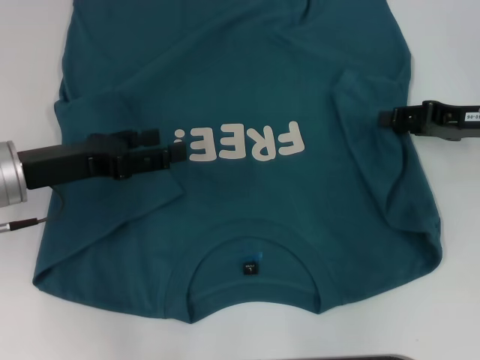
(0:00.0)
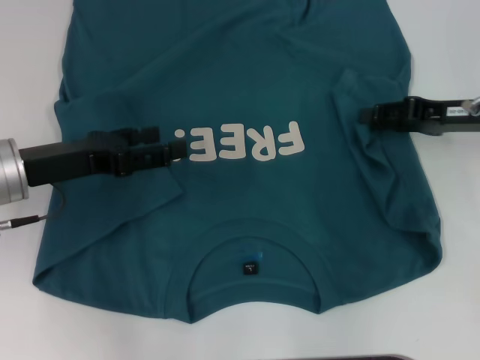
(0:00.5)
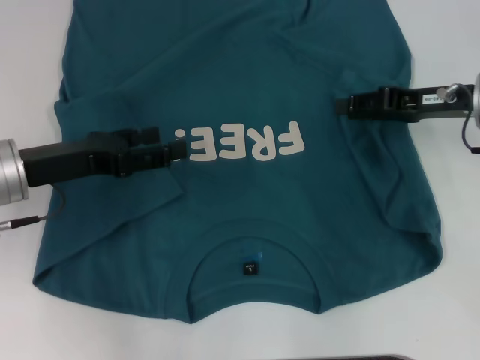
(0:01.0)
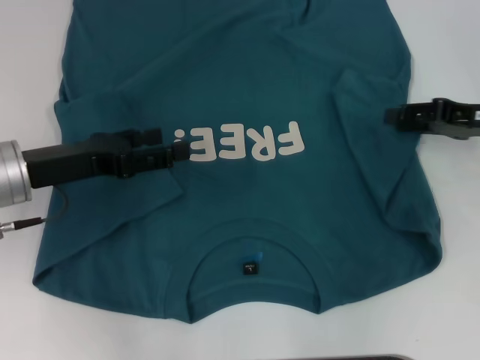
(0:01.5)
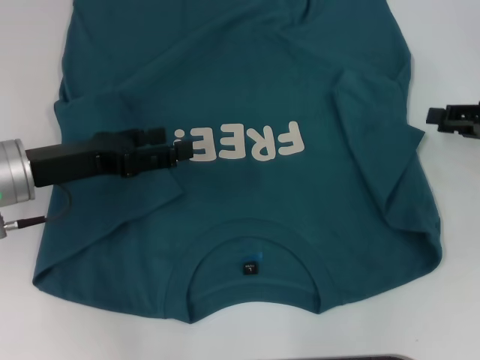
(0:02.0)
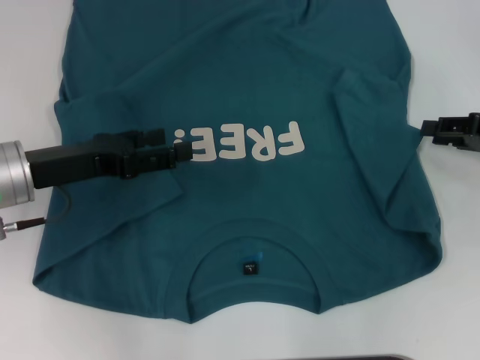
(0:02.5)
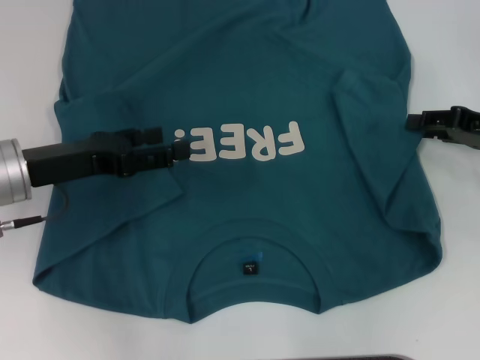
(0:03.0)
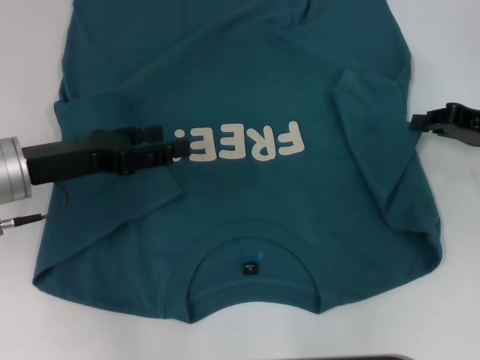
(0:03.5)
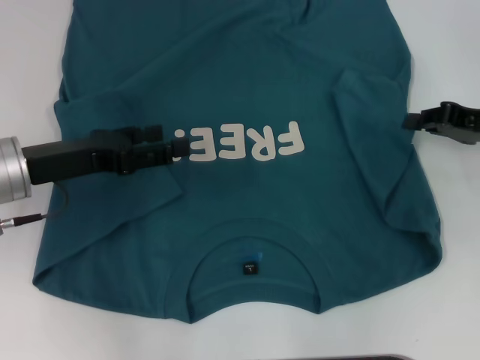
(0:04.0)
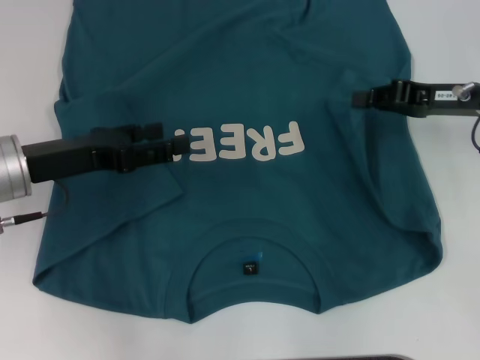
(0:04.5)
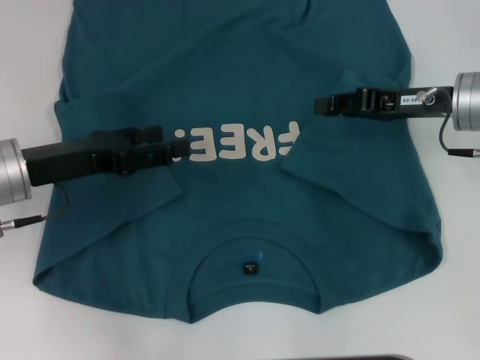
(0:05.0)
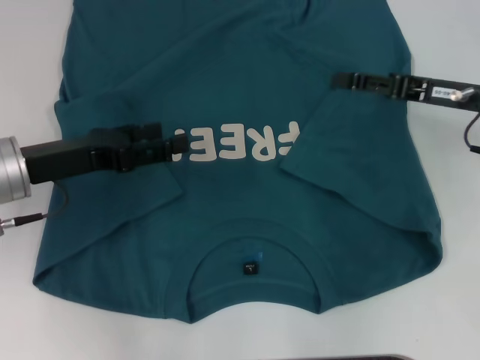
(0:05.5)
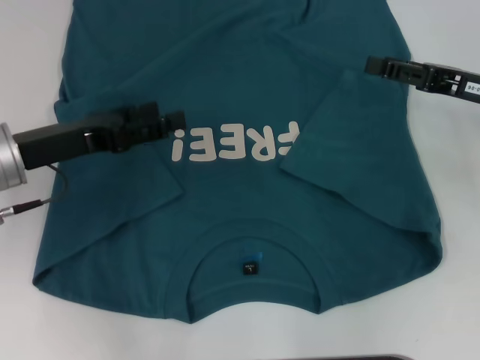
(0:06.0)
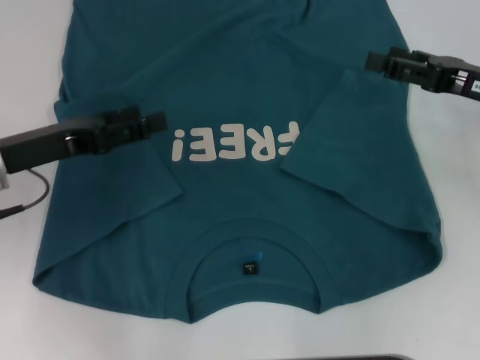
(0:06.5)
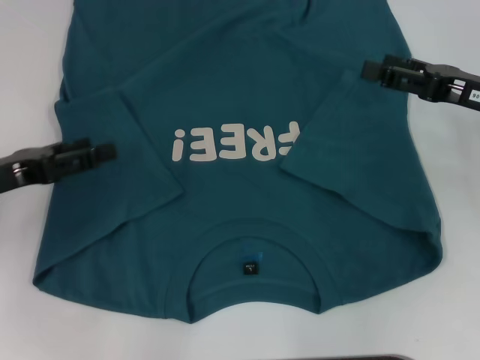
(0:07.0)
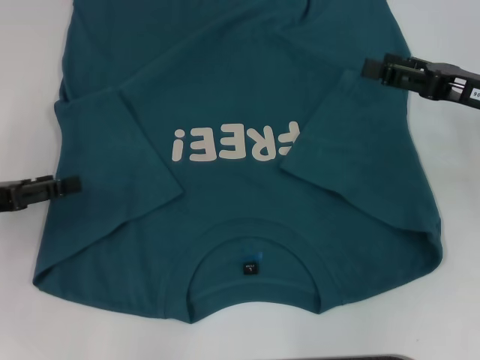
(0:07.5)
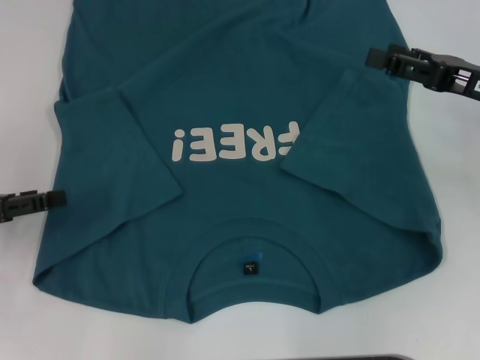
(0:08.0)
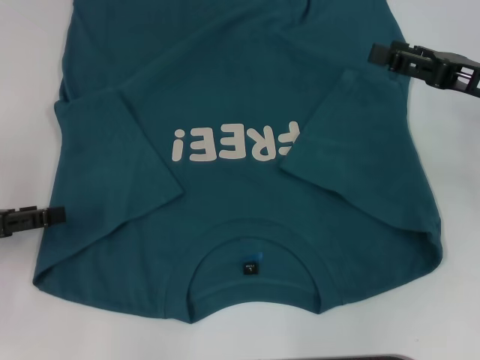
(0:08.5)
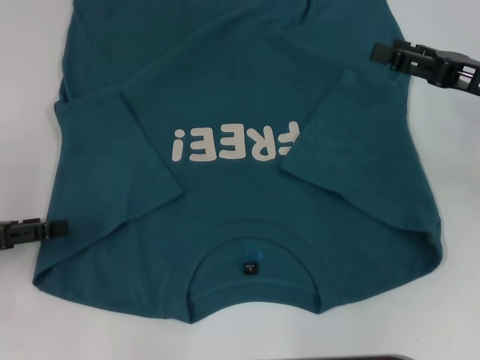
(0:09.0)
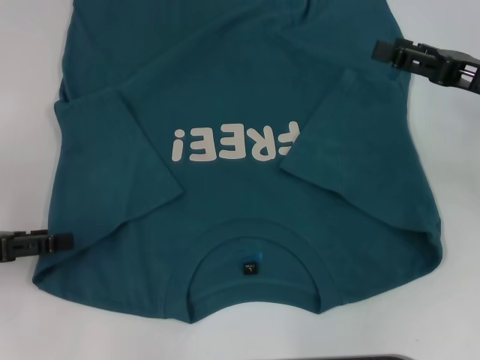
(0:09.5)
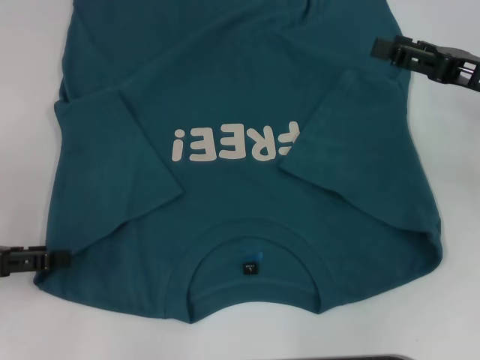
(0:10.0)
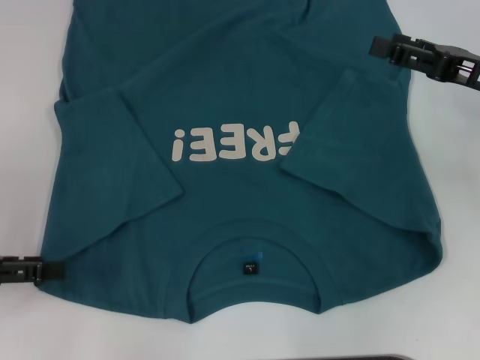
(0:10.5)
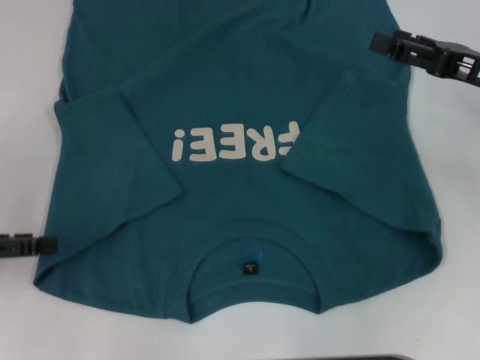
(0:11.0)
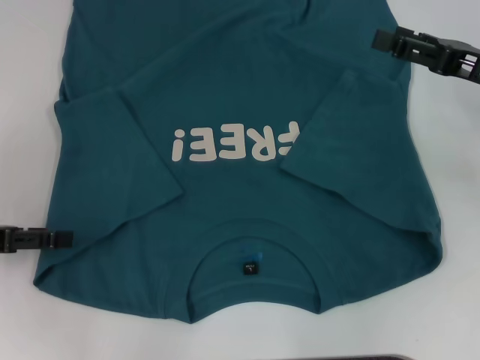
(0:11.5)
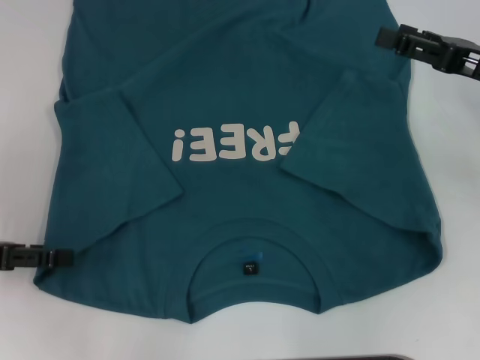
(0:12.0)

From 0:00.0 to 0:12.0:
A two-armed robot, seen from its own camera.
Step, from 0:00.0 to 0:05.0: Fold the bottom right sleeve to the right.
From 0:00.0 to 0:02.0: The right gripper moves roughly 5 cm.
From 0:02.0 to 0:04.0: The right gripper closes.
From 0:04.0 to 0:06.0: The right gripper moves approximately 10 cm to the left and comes back, and opens its fingers.
From 0:06.0 to 0:08.0: The left gripper shifts about 10 cm to the left.
From 0:08.0 to 0:12.0: The grippers move only a little.

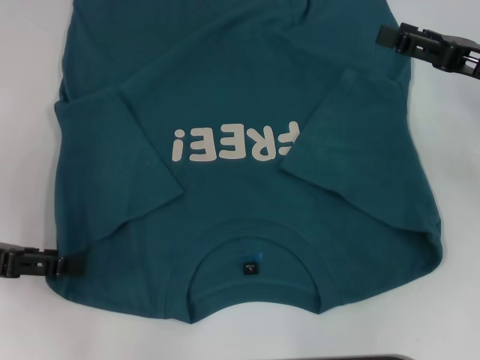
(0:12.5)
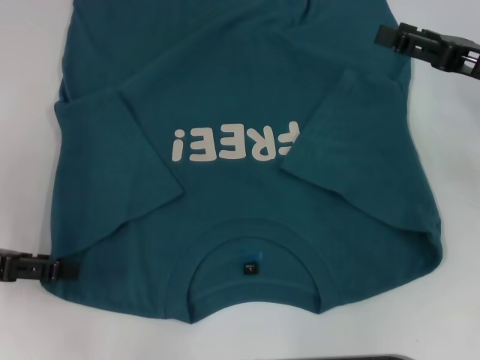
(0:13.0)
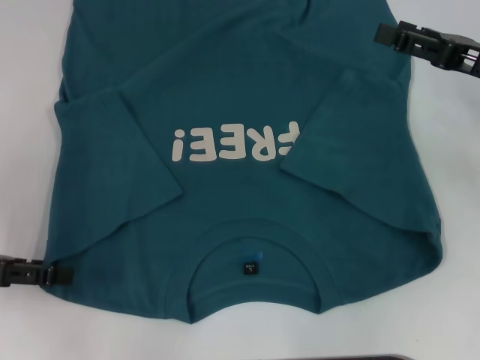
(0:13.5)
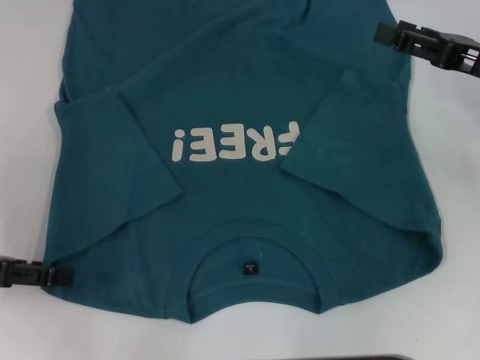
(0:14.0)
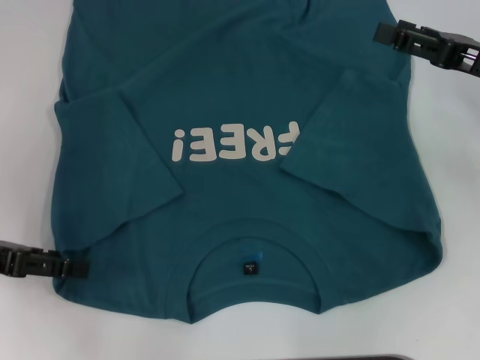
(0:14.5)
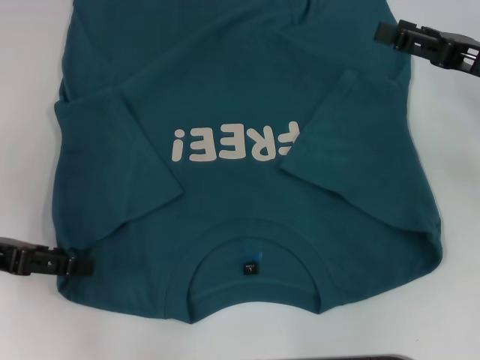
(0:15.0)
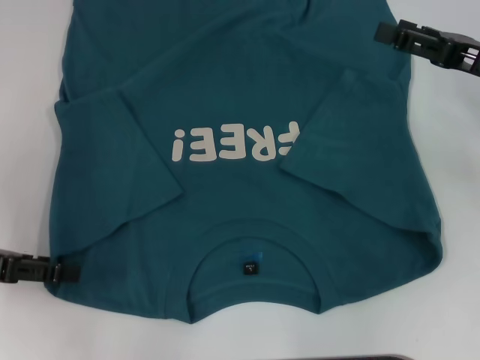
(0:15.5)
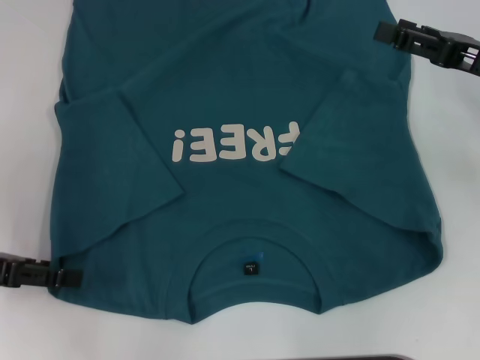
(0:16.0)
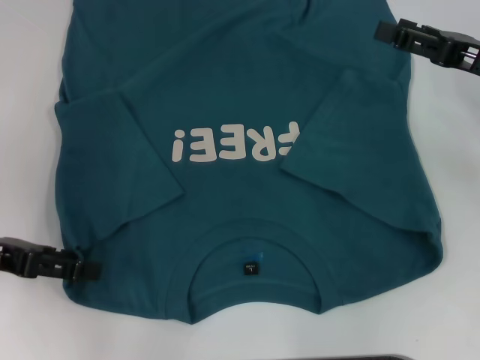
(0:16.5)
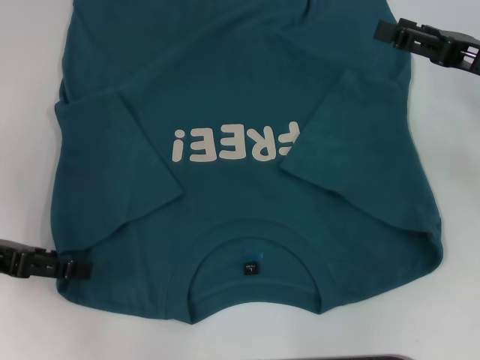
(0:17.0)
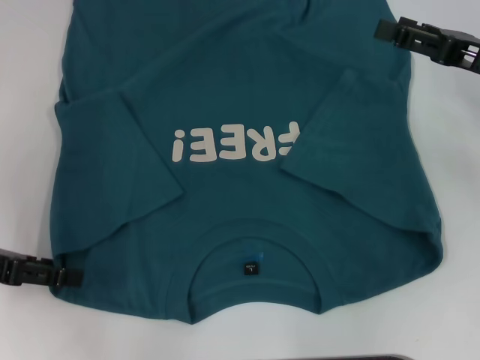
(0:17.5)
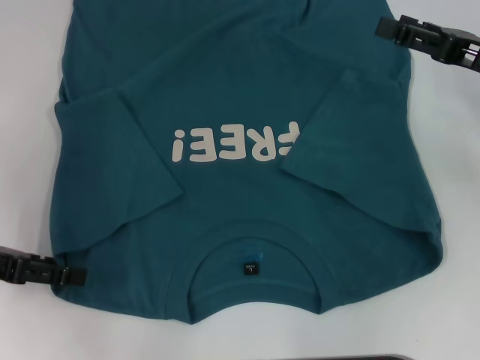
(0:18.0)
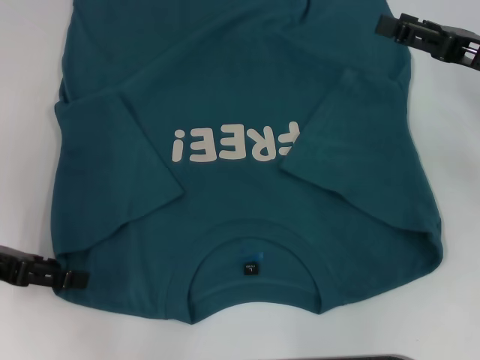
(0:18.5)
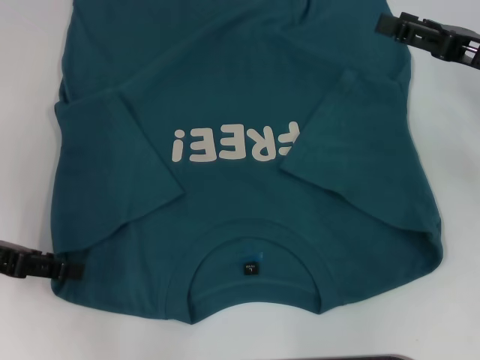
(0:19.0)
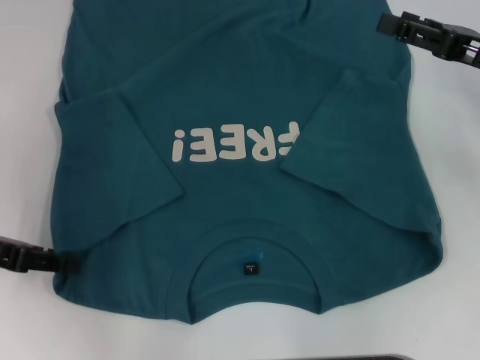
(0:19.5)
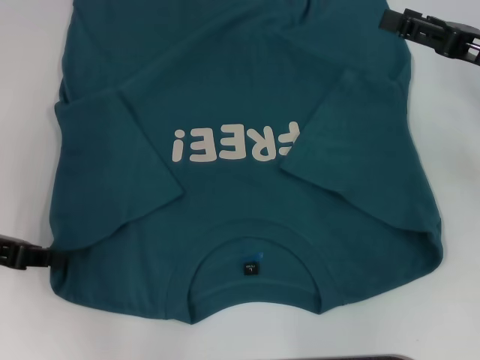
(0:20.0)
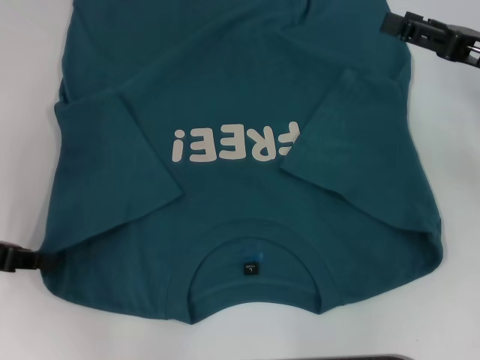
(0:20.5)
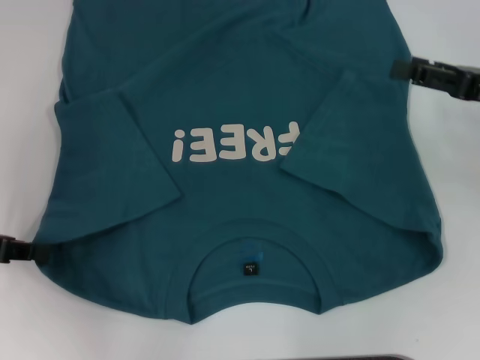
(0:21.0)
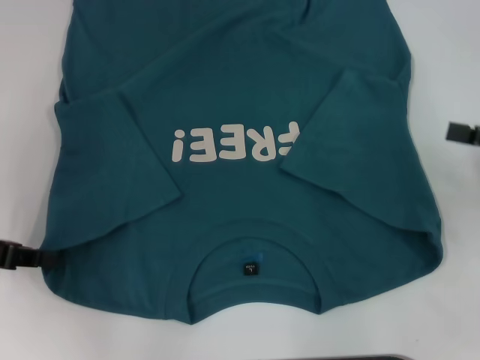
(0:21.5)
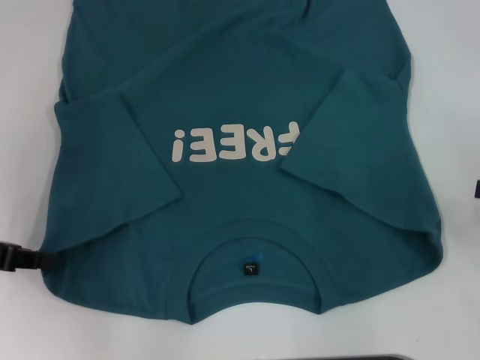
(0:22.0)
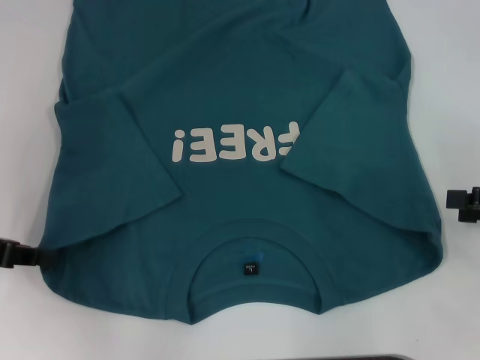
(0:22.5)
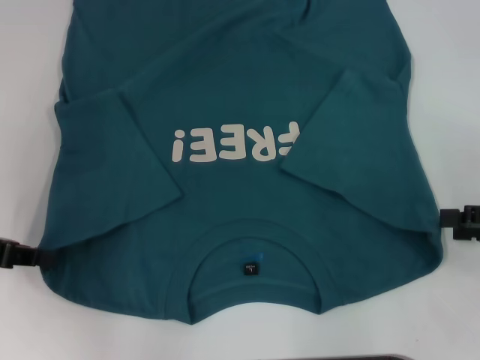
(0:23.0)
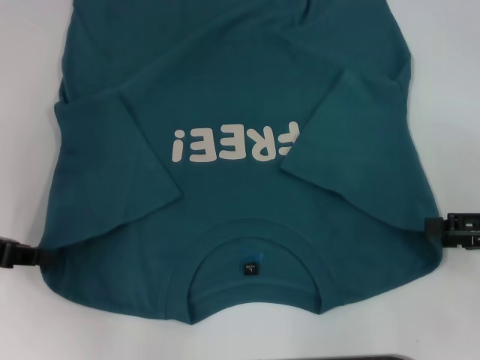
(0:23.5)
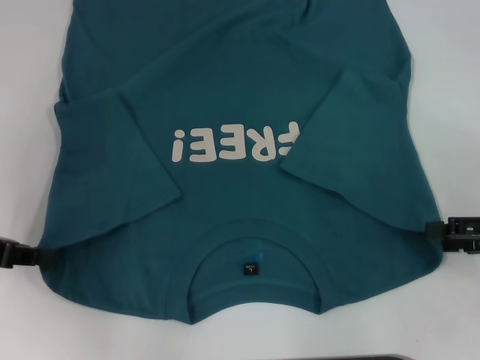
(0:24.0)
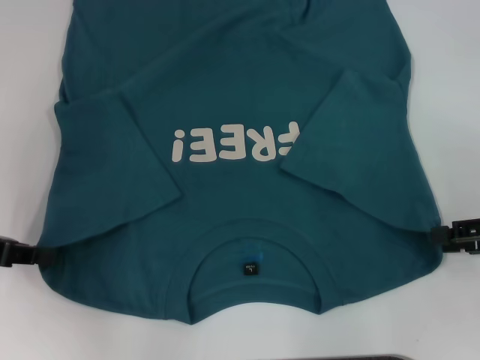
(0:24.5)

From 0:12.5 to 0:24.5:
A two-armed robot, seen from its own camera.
Step, from 0:12.5 to 0:20.5: Grab the bottom left corner with your left hand.
From 0:12.5 to 0:14.5: Neither gripper changes place.
From 0:14.5 to 0:16.5: Both grippers stay about where they are.
From 0:16.5 to 0:18.5: The grippers move only a little.
From 0:18.5 to 0:20.5: The left gripper closes.
From 0:20.5 to 0:22.5: The right gripper moves backward and to the right, approximately 10 cm.
From 0:22.5 to 0:24.5: There are only small adjustments of the grippers.

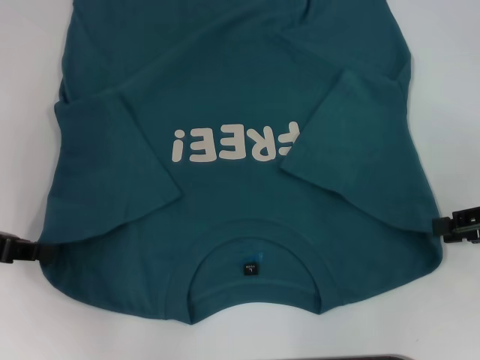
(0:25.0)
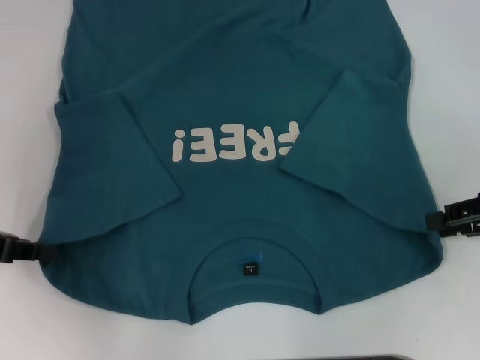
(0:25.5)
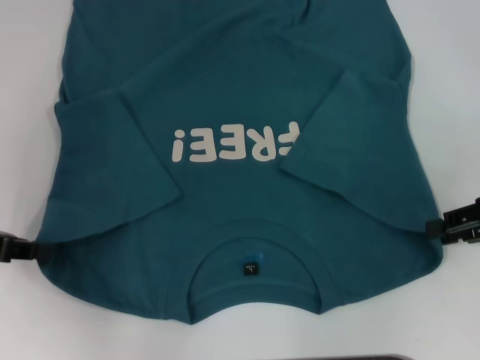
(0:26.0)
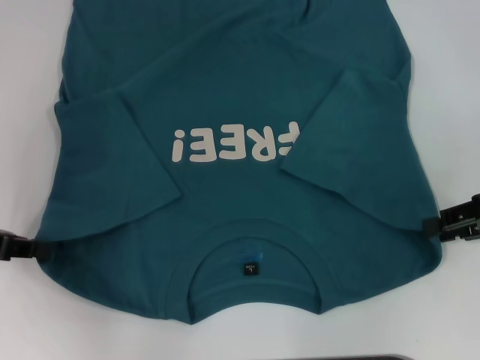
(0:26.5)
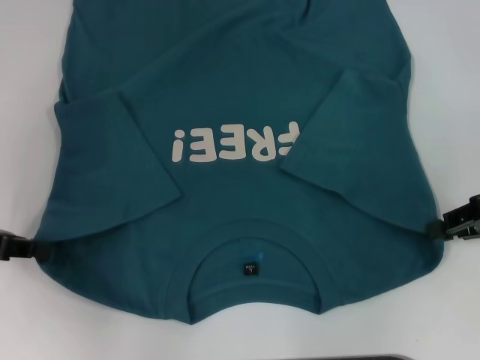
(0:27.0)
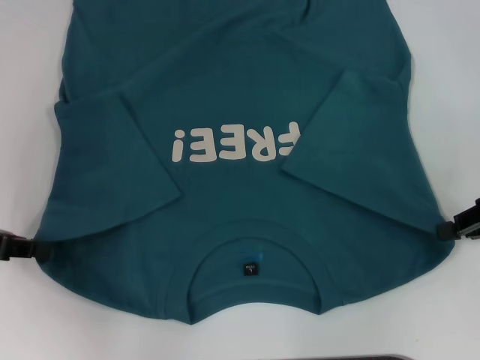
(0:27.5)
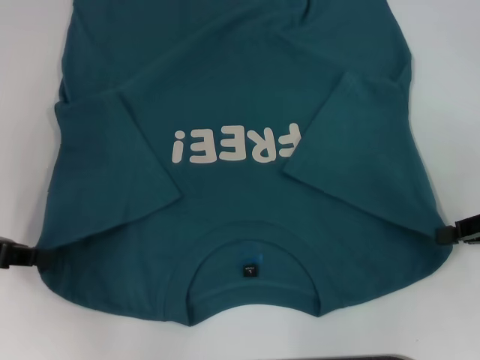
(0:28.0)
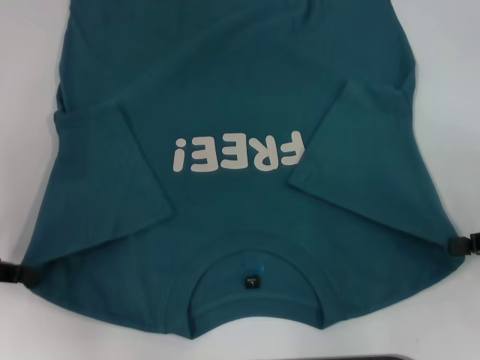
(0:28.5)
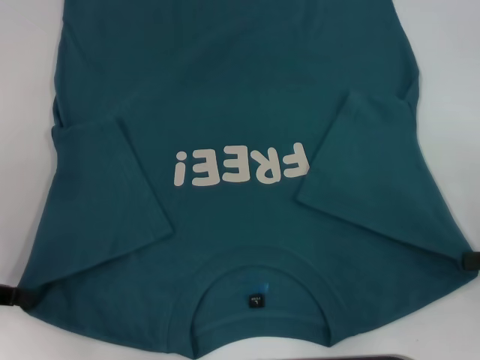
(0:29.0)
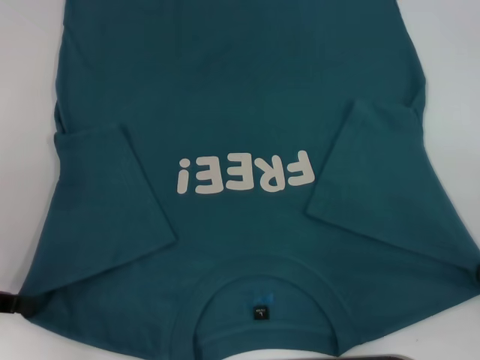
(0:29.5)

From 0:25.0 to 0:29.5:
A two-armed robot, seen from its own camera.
Step, from 0:25.0 to 0:28.0: Grab the bottom right corner with your right hand.
From 0:25.0 to 0:27.0: There are only small adjustments of the grippers.
From 0:27.0 to 0:29.5: The right gripper shifts roughly 10 cm backward.
